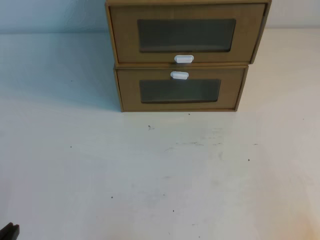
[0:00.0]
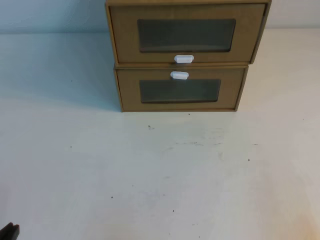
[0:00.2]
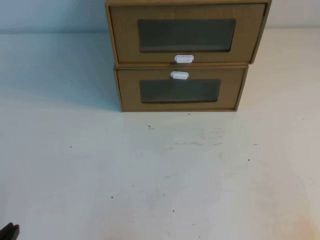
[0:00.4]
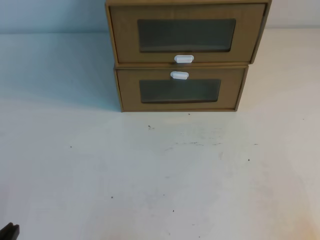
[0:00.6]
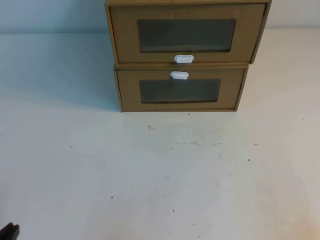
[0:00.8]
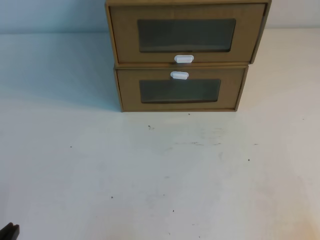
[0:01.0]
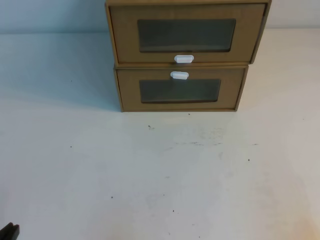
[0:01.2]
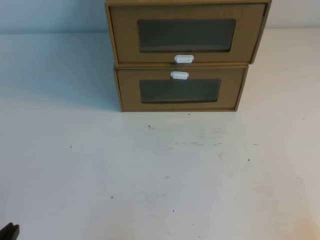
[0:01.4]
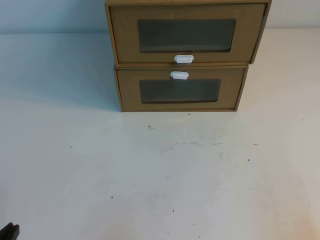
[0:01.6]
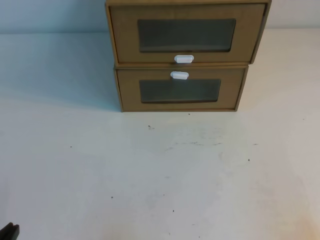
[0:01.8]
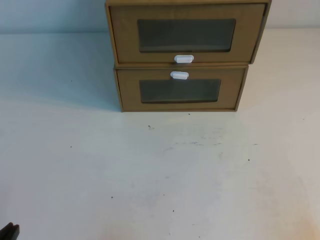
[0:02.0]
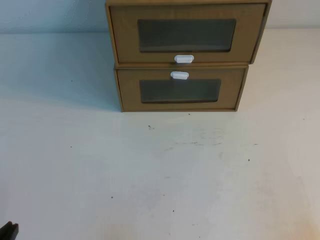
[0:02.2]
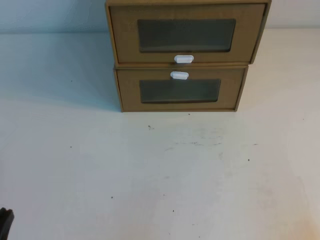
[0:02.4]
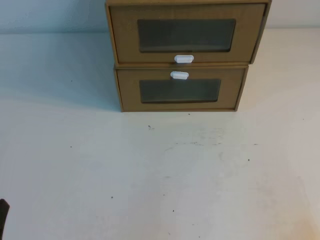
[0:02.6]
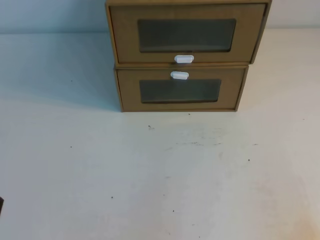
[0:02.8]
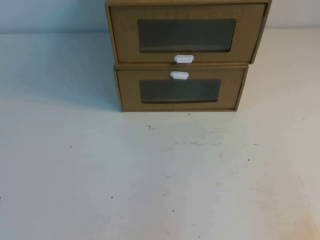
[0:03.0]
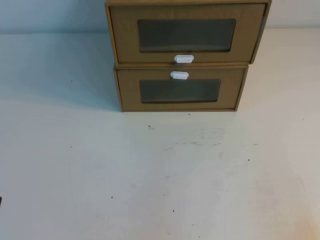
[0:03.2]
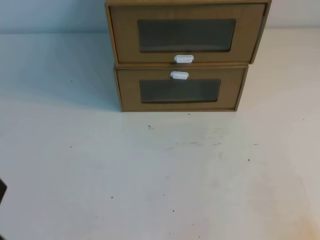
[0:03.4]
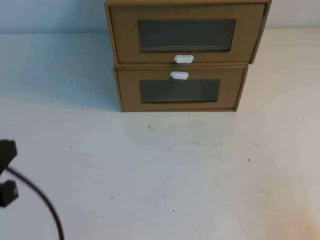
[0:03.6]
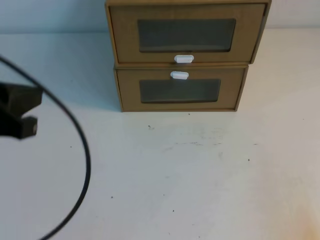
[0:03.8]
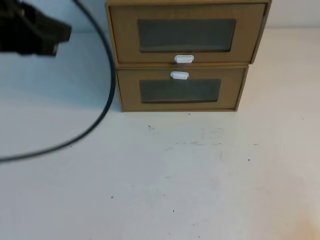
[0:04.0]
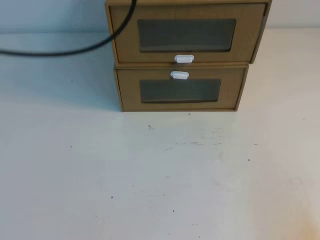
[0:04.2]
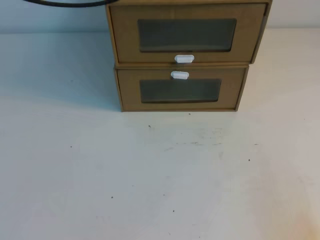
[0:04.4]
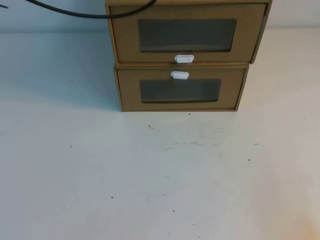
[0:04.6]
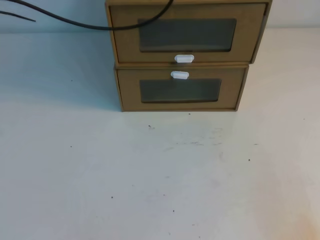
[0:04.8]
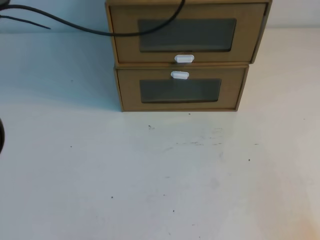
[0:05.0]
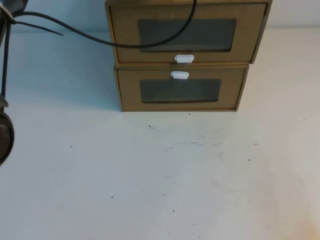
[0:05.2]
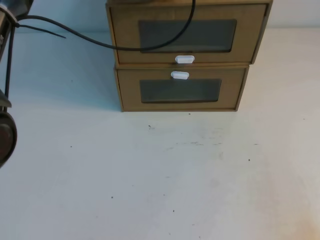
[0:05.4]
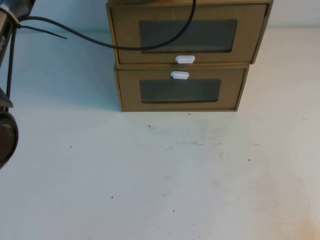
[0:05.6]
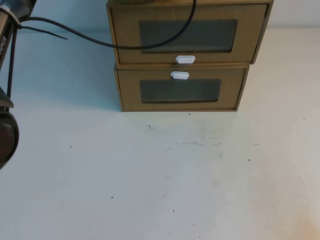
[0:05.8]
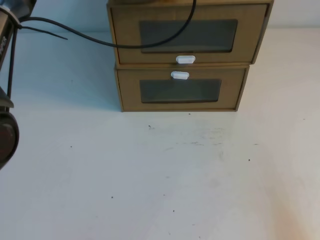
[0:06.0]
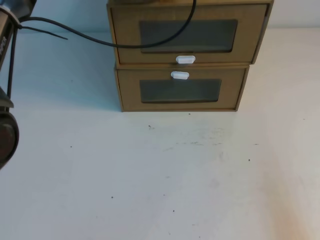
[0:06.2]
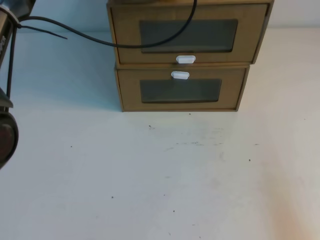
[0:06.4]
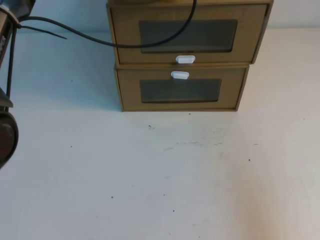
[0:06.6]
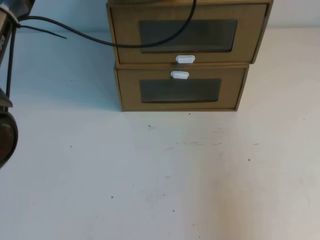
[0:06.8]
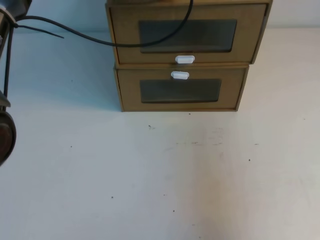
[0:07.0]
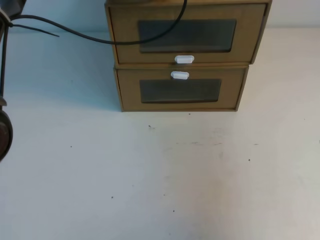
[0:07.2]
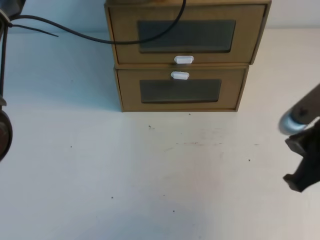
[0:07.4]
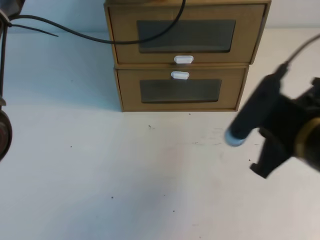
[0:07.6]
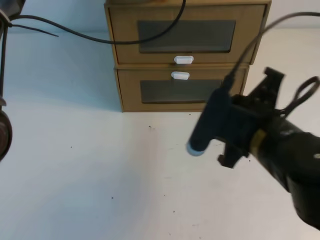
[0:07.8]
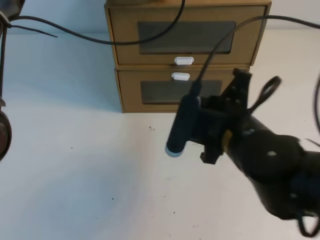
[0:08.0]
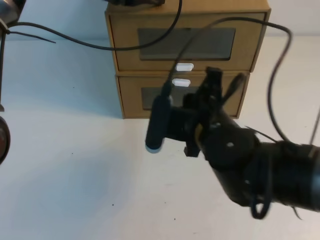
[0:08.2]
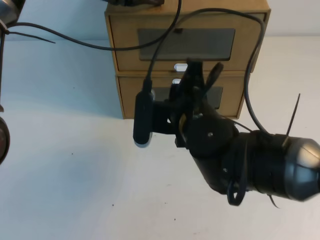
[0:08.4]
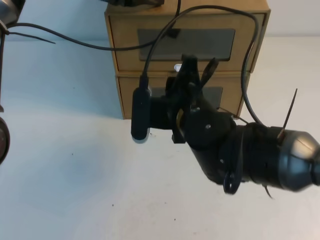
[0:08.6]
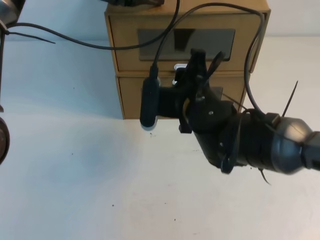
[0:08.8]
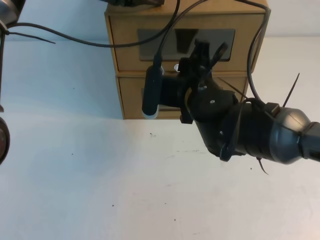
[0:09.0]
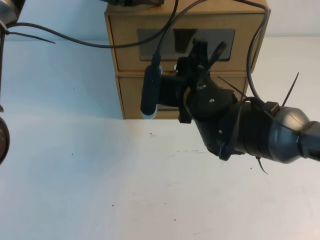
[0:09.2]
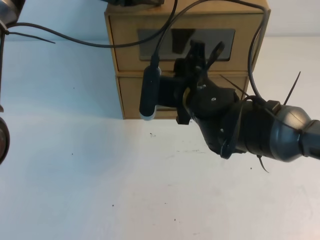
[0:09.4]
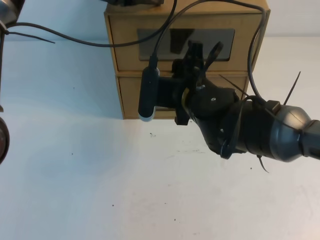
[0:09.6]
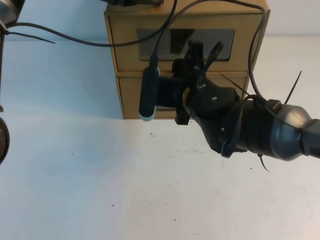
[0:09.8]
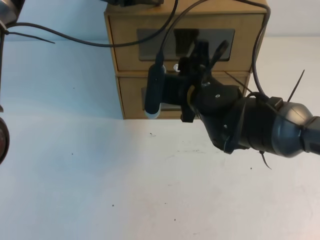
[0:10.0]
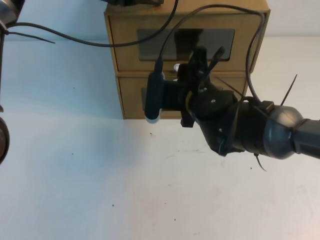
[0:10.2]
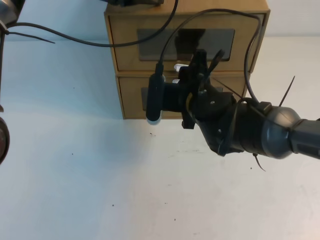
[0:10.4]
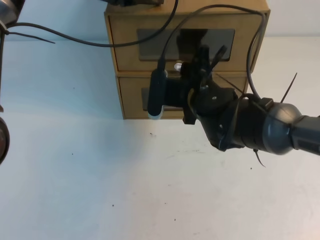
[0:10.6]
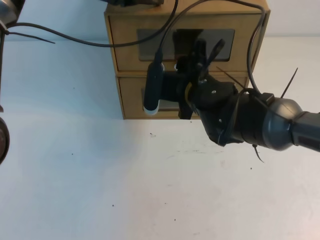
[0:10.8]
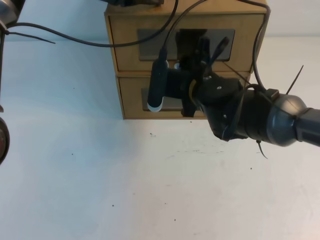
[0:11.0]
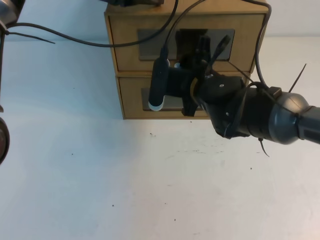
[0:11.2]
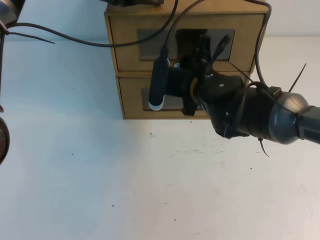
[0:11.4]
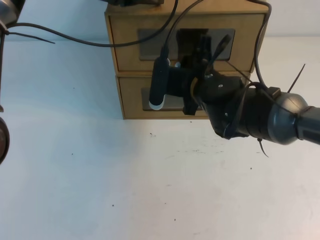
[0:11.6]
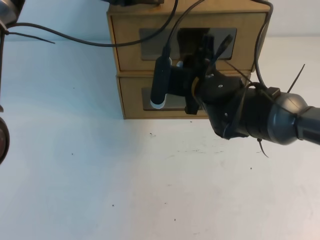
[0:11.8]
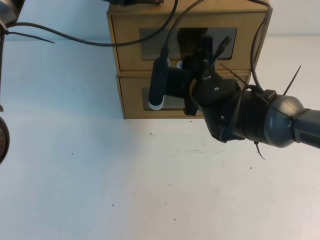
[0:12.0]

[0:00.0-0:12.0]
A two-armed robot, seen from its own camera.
Task of the whole recording: open the shoebox on the table.
0:00.0 to 0:01.6: The two grippers keep their place.
0:04.4 to 0:06.0: The left gripper shifts some 15 cm downward, forward and to the right.
0:06.0 to 0:07.6: The right gripper moves forward, to the left and upward, approximately 25 cm.
0:07.6 to 0:09.0: The right gripper moves to the left and forward, some 20 cm, and opens its fingers.
0:09.0 to 0:10.4: The grippers make only small movements.
0:10.4 to 0:12.0: The right gripper closes.

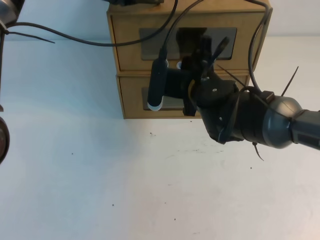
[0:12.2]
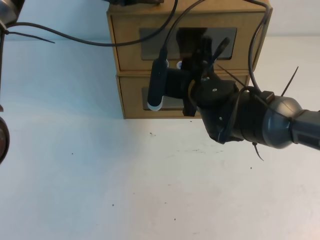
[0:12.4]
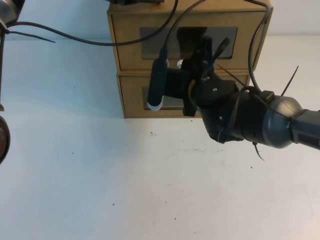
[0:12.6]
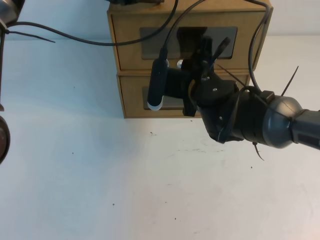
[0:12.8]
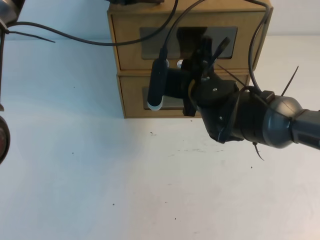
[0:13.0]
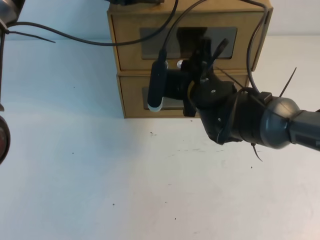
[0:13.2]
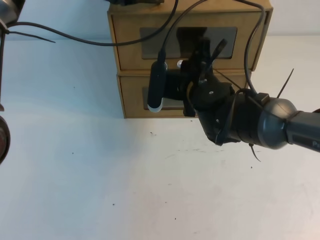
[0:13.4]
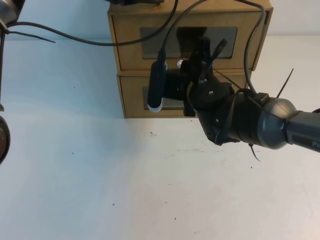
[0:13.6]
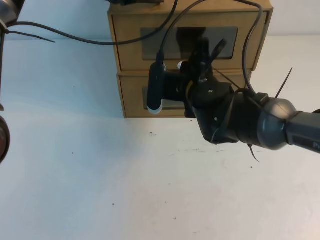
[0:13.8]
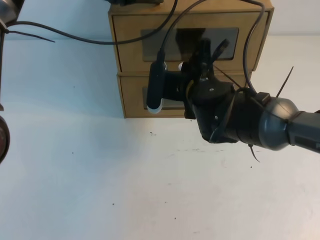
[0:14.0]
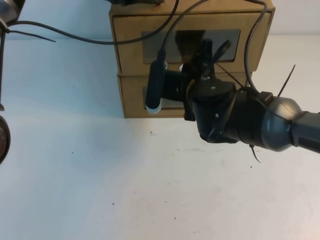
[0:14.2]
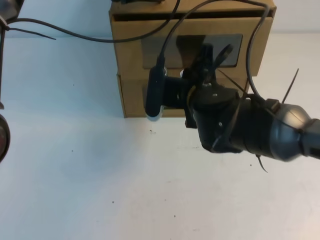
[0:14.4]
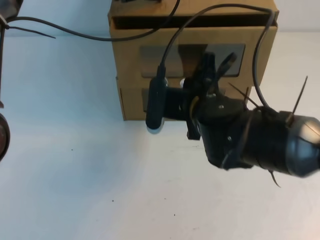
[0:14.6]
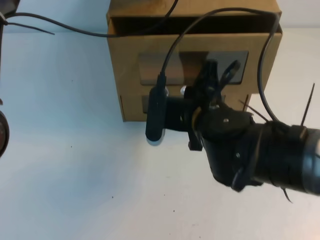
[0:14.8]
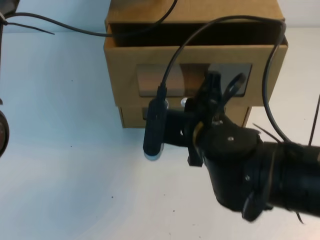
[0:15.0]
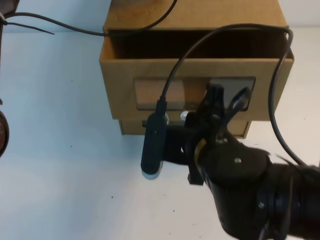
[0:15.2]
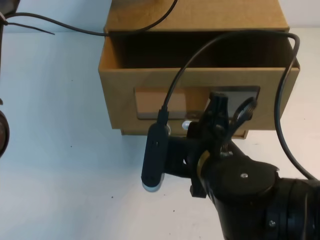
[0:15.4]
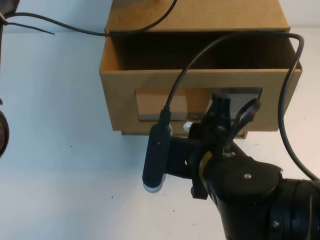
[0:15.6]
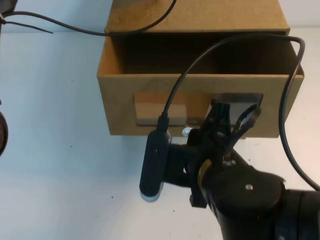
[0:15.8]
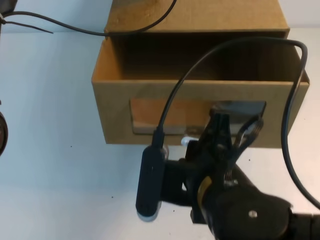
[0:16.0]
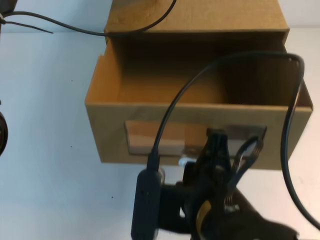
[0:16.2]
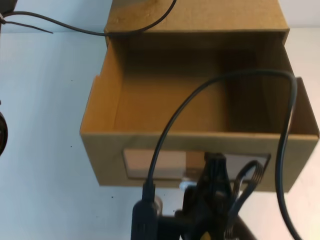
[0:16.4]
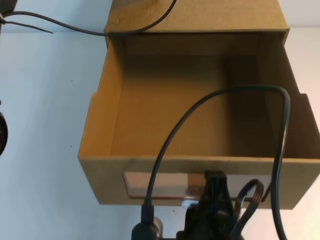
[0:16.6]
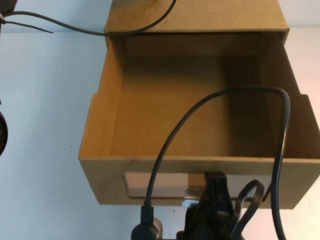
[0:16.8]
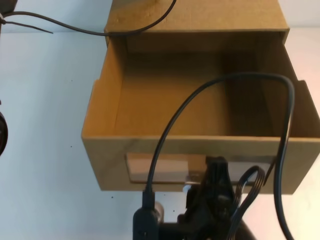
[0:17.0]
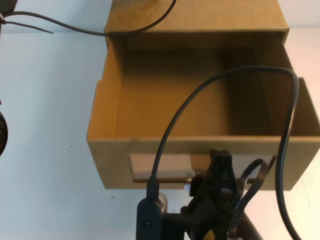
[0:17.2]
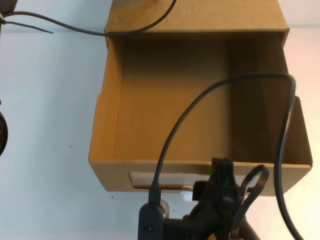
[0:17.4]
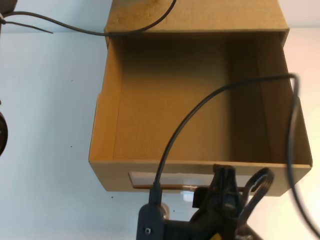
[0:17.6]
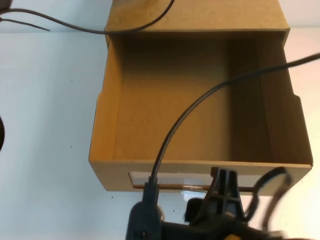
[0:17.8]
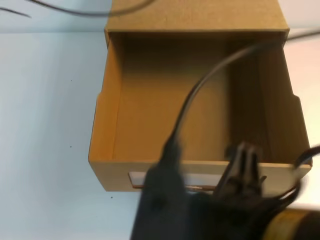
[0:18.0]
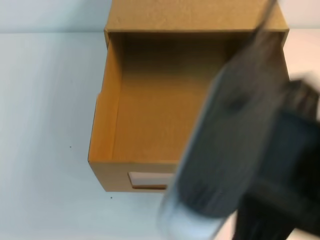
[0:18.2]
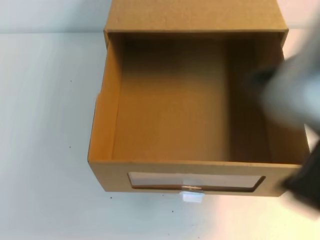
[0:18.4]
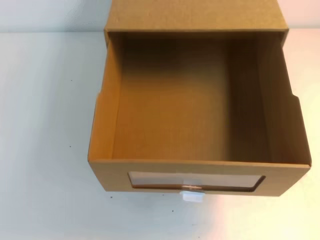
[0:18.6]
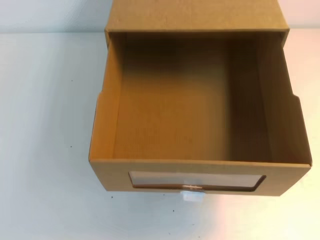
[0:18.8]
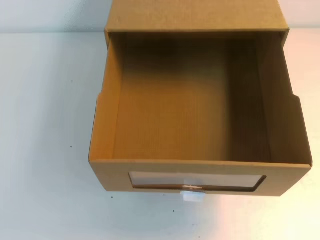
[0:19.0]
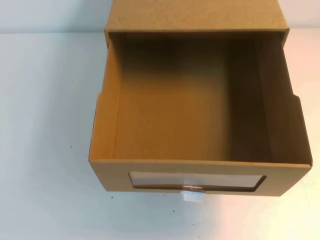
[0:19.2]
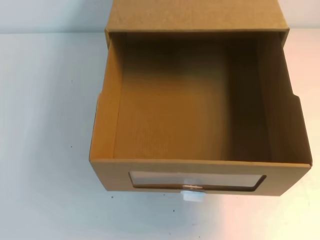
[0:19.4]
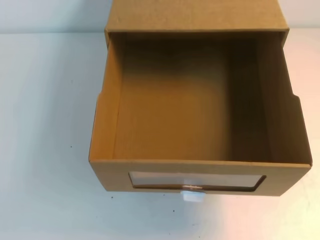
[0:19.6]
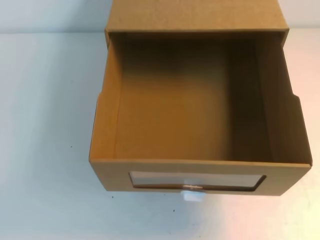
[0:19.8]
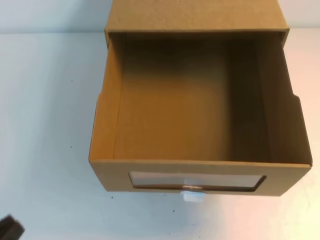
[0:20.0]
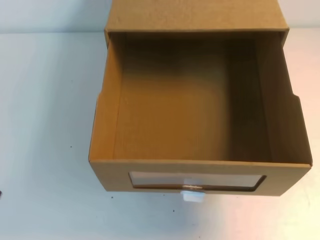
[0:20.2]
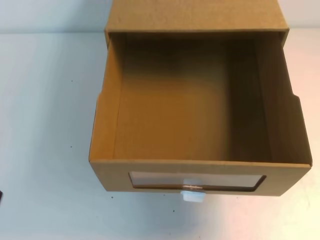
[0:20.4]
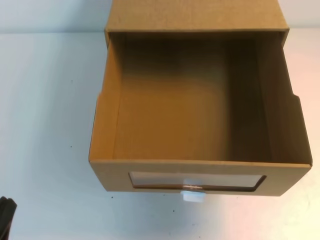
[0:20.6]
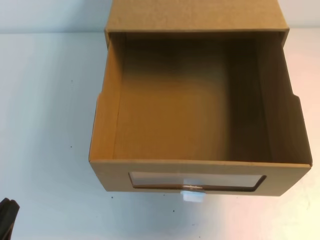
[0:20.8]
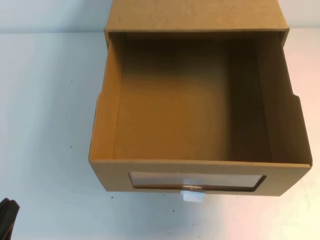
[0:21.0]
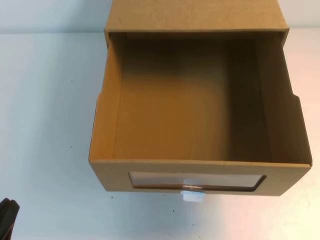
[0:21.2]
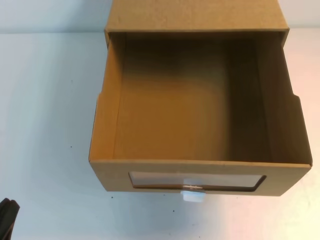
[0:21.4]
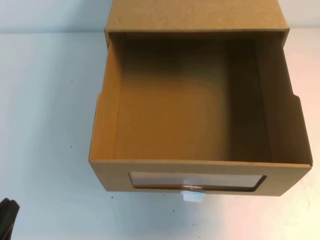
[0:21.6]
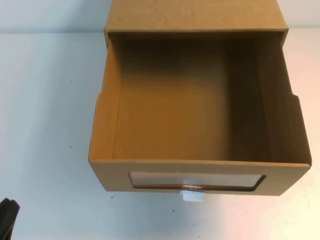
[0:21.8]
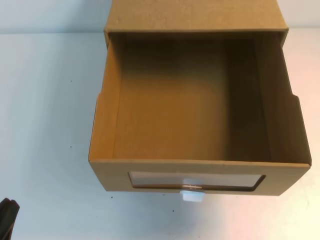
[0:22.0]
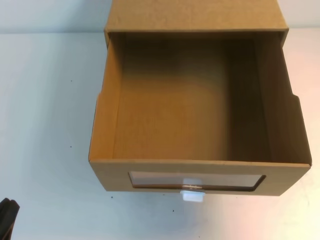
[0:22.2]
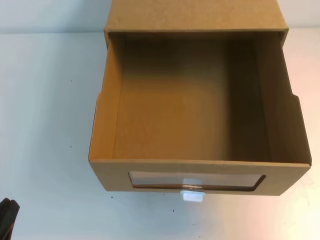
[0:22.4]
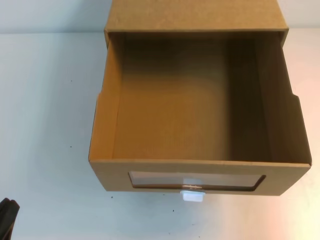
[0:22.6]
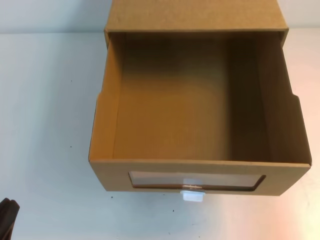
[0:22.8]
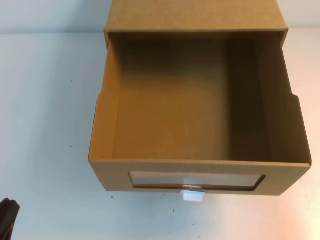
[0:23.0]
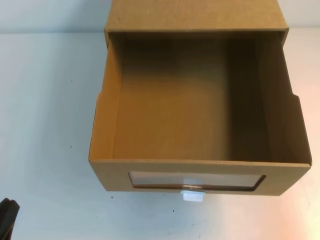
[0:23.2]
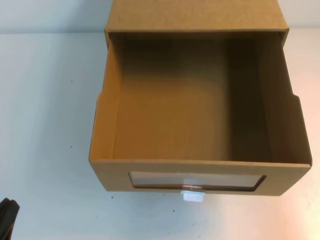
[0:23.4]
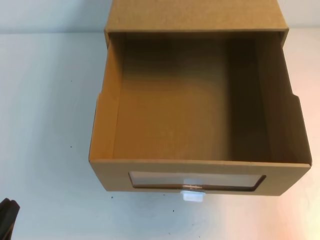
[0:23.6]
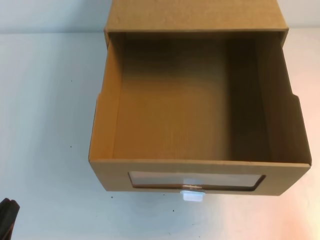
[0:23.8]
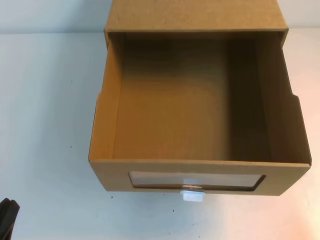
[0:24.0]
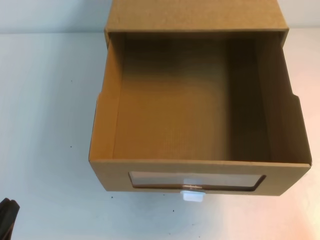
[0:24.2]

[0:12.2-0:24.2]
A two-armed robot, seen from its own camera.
Task of the whole recording: open the shoebox on the table.
0:12.2 to 0:13.8: The right gripper closes.
0:13.8 to 0:15.2: The right gripper moves backward, roughly 15 cm.
0:15.2 to 0:16.6: The right gripper heads backward, covering roughly 15 cm.
0:16.6 to 0:18.2: The right gripper goes about 15 cm upward, and opens, then closes again; the left gripper travels upward and backward by about 15 cm.
0:18.2 to 0:19.8: The right gripper goes approximately 20 cm to the right, while the left gripper goes roughly 40 cm backward and downward.
0:19.8 to 0:21.2: The left gripper moves downward and forward, about 15 cm.
0:21.2 to 0:22.6: The right gripper moves downward, about 15 cm.
0:22.6 to 0:24.2: The right gripper moves downward, some 15 cm.
